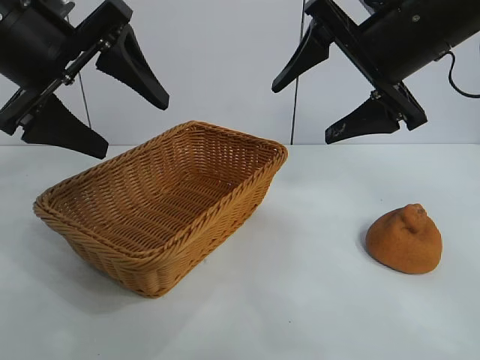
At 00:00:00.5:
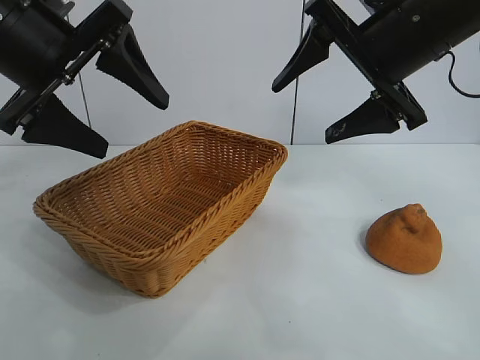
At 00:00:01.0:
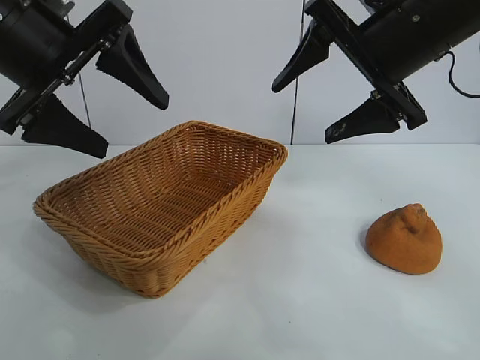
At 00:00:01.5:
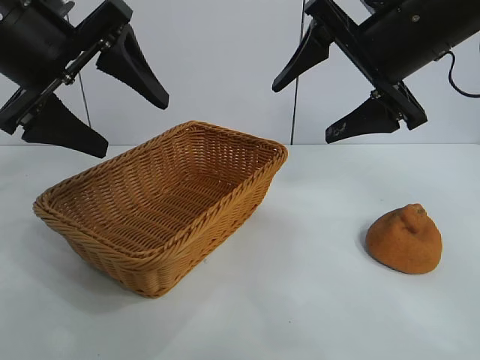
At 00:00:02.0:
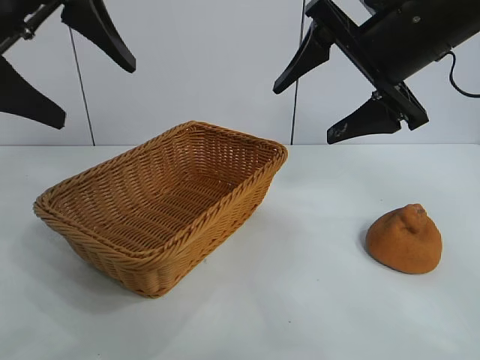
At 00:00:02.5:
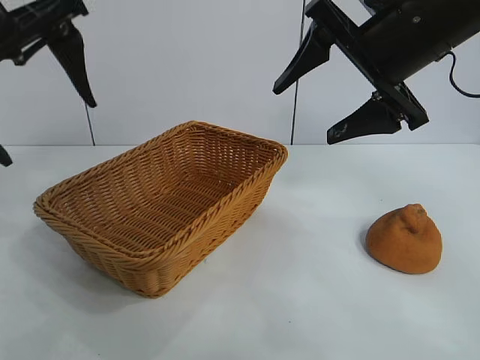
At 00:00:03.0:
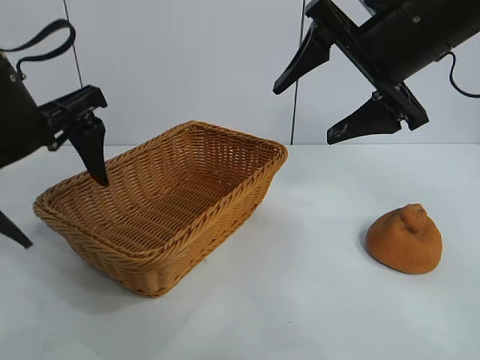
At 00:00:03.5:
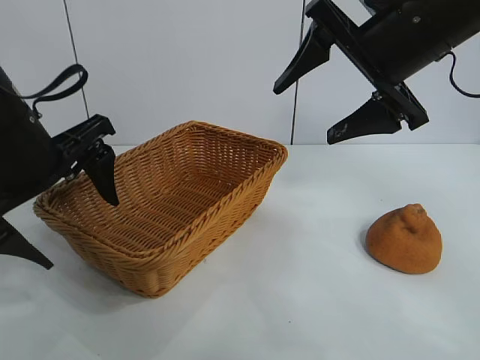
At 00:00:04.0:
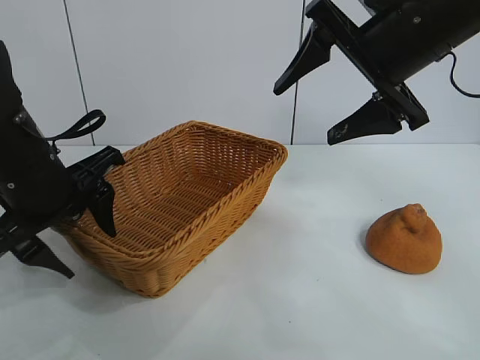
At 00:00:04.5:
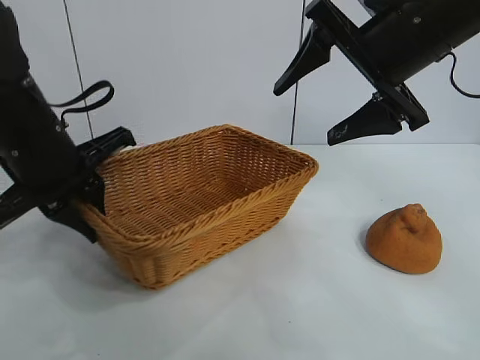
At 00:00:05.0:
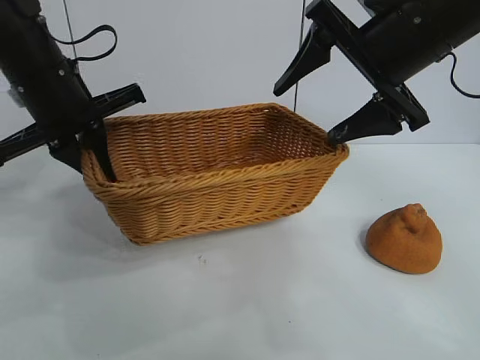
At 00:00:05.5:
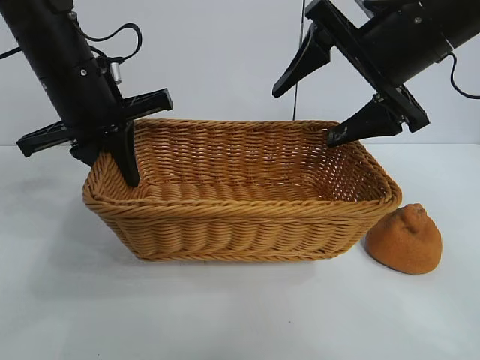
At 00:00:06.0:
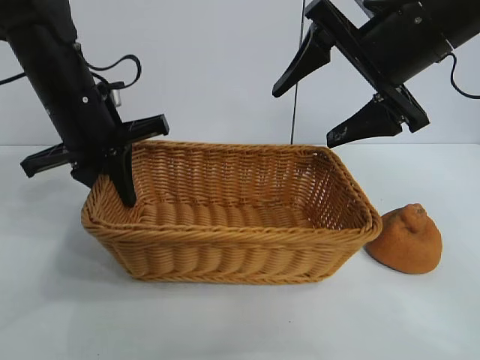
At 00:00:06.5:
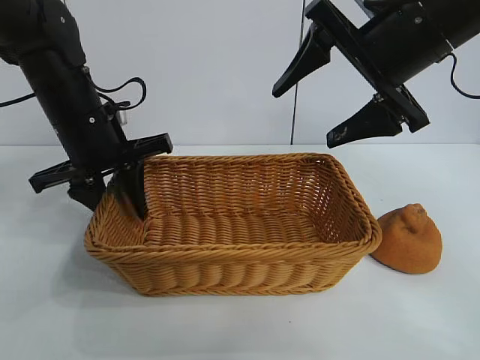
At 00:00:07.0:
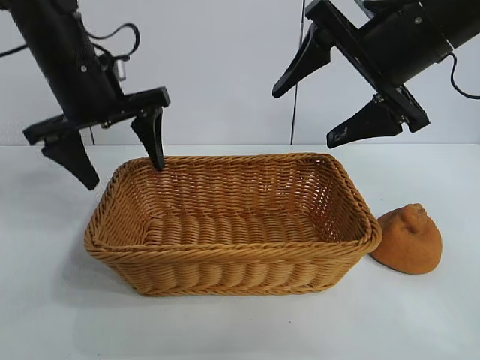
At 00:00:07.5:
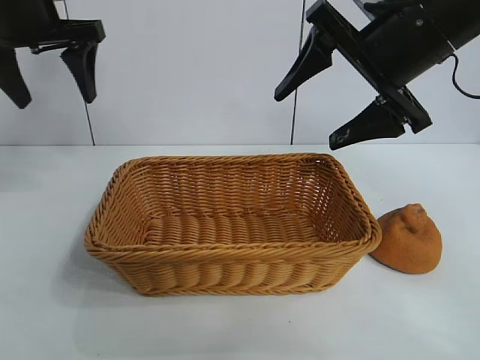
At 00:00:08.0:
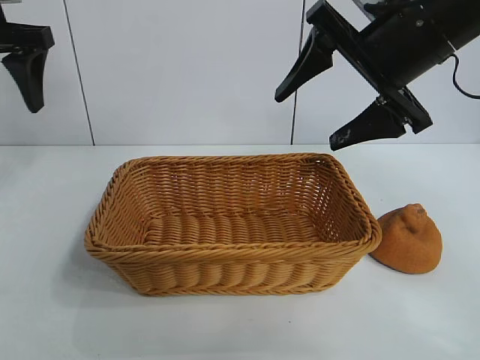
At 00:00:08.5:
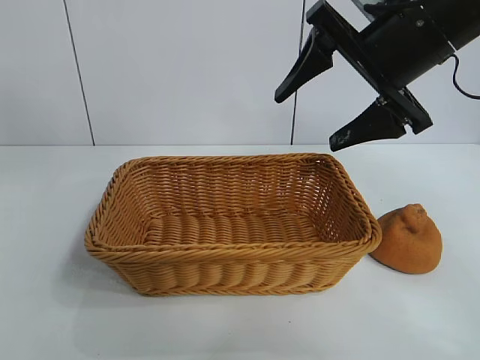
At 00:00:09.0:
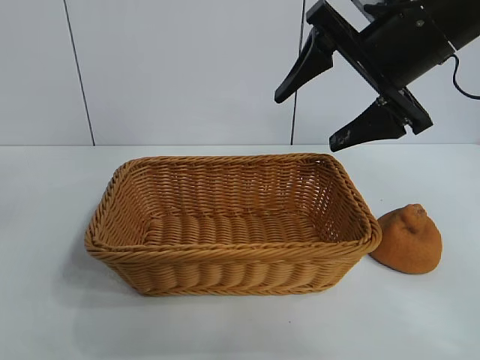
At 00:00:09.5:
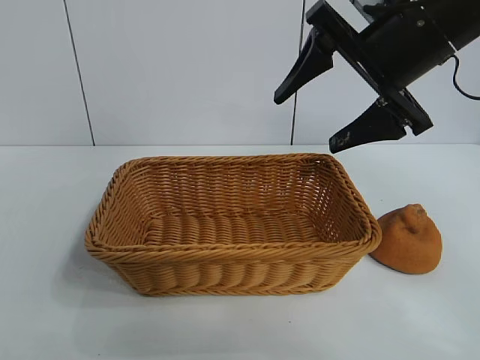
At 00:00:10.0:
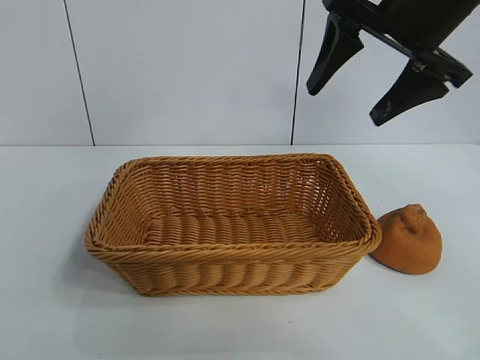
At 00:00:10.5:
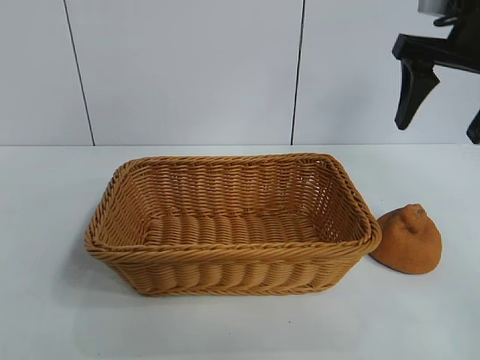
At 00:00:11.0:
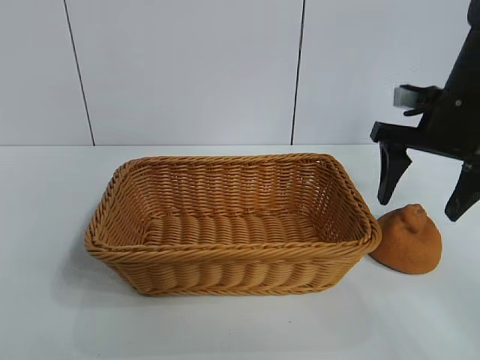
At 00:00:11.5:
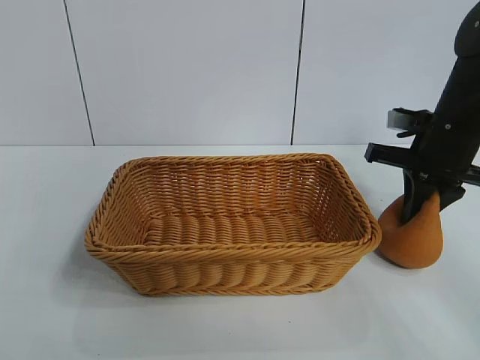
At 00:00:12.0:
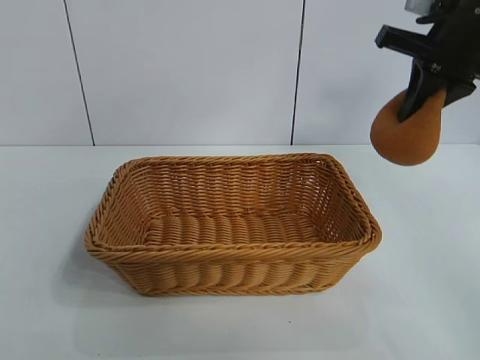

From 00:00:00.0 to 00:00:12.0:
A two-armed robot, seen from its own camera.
Task of the whole recording: pick up the orange and put it into the basket.
Step, from 00:00:00.0 to 00:00:04.0: Grasp the basket with left gripper.
Step, from 00:00:04.5 to 00:00:06.5: Place the basket in the center of view with left gripper.
Step, from 00:00:07.0 to 00:00:11.0: Grasp the orange with right gripper.

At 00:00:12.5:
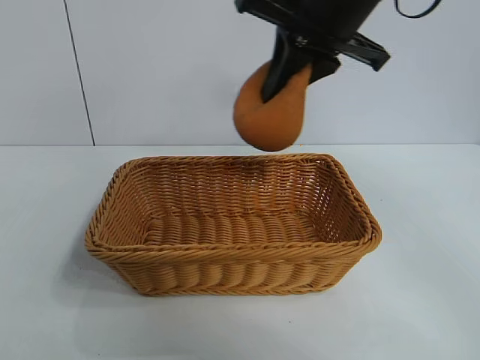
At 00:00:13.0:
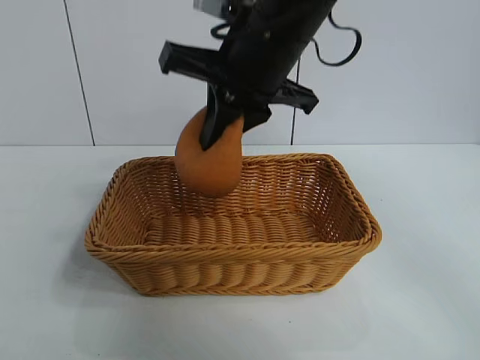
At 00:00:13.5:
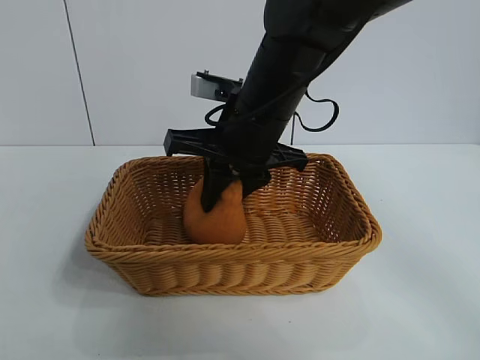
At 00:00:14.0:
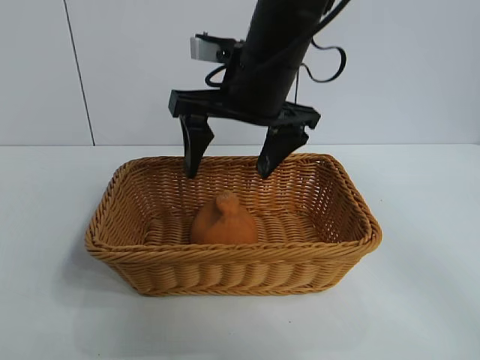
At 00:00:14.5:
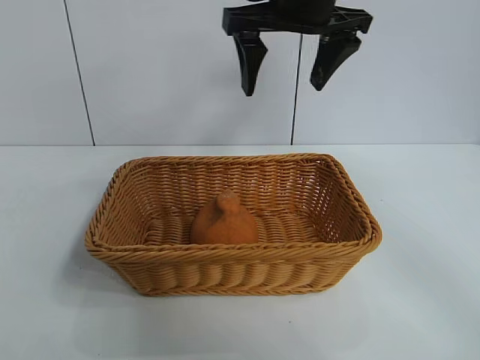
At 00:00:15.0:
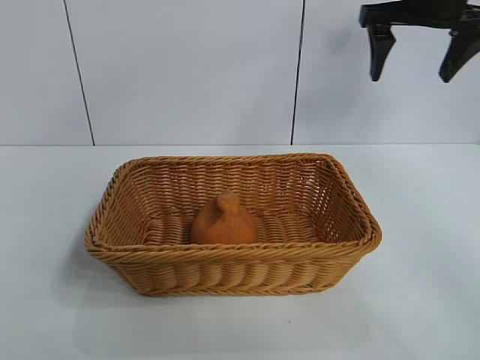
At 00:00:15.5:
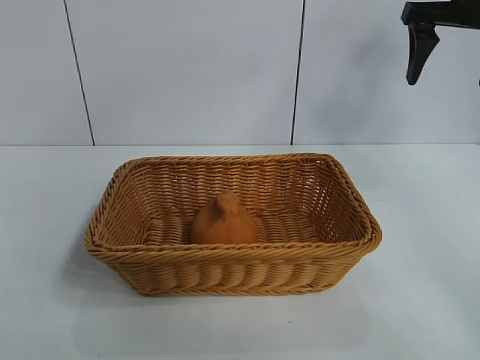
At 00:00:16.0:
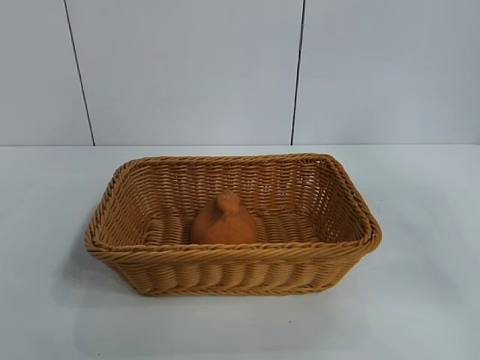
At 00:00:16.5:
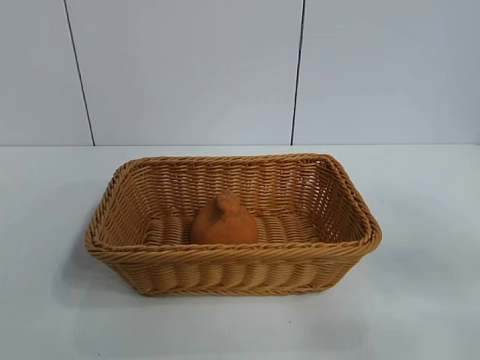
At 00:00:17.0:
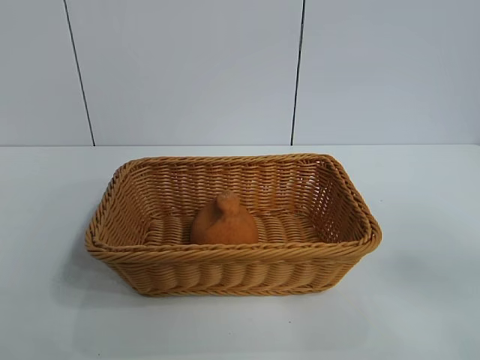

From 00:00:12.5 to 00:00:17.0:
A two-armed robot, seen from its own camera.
Task of the whole recording: pick up the orange and put it into the basket.
Step, from 00:00:12.5 to 00:00:14.0: Place the orange in the basket with right gripper.
